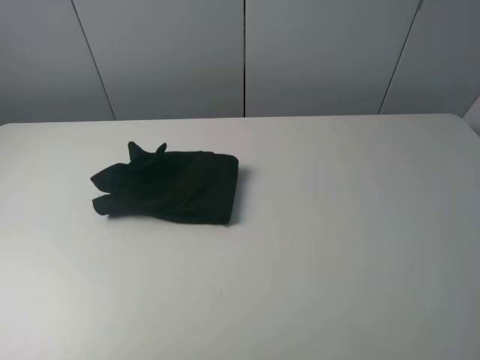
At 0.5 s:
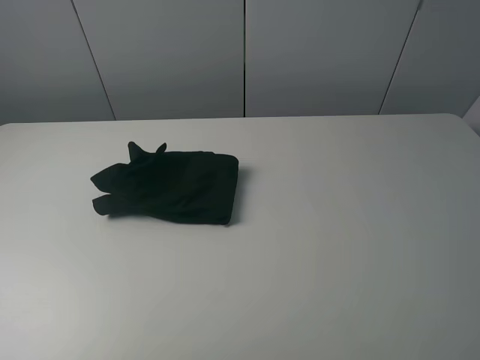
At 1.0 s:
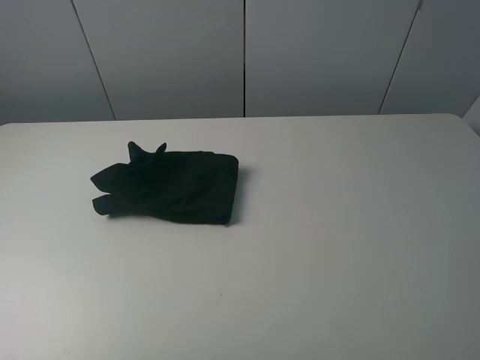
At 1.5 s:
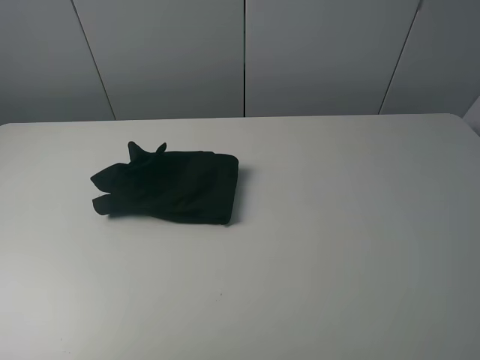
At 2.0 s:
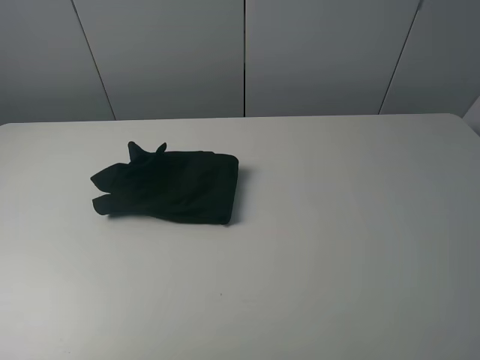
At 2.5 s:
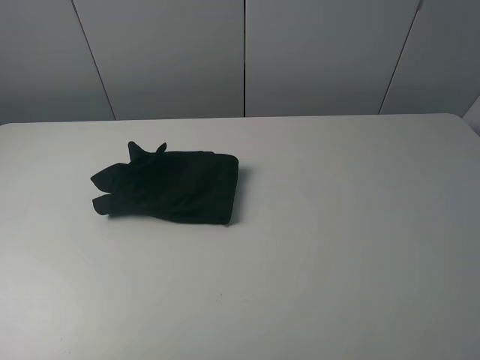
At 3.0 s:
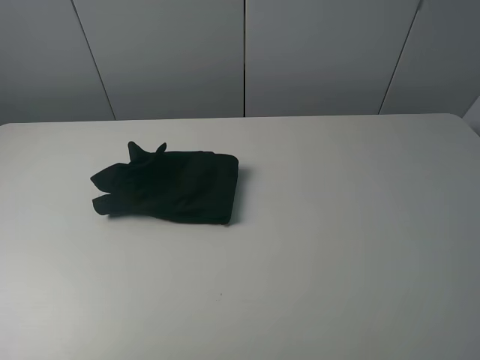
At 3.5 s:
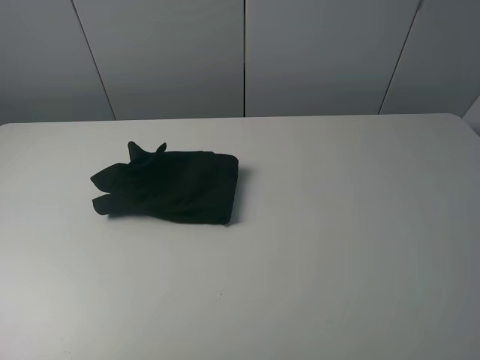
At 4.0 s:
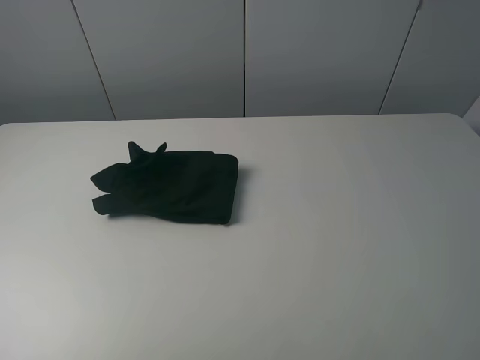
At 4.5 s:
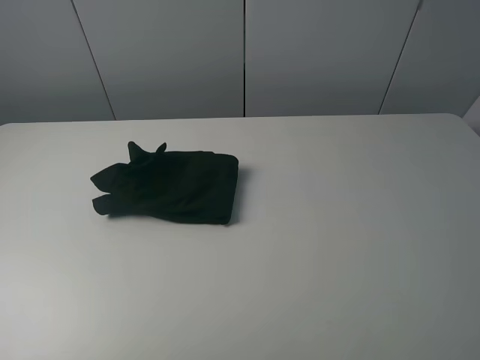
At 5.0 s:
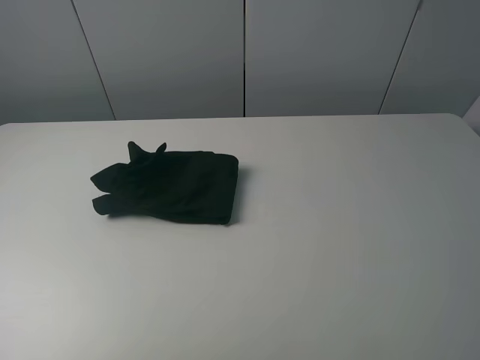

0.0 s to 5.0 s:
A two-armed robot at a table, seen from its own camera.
Task of the whole recording: fold the clothes on the table.
2.5 to 5.0 s: Both grippers stay about where they are.
